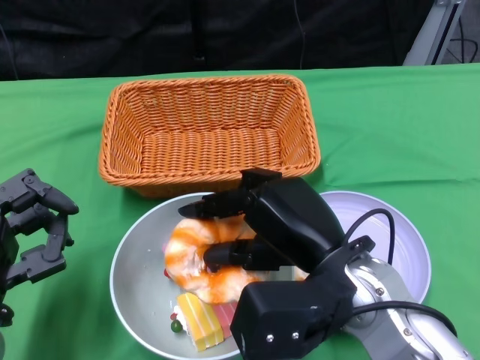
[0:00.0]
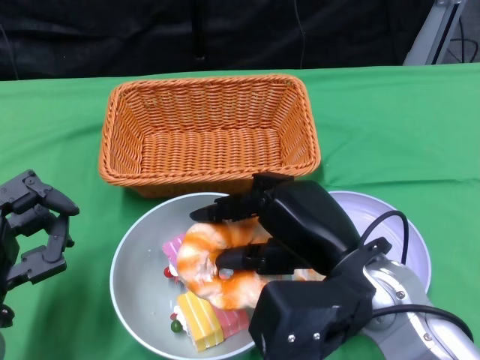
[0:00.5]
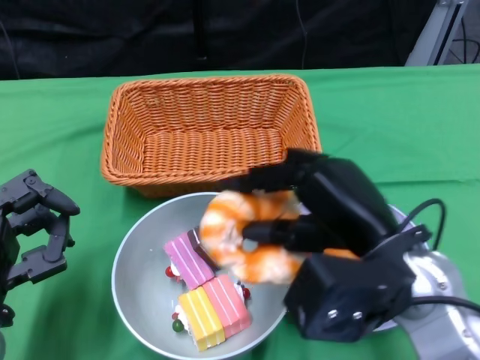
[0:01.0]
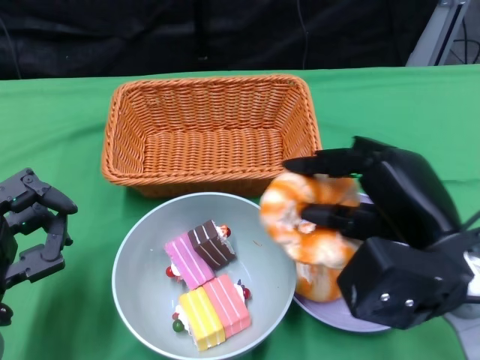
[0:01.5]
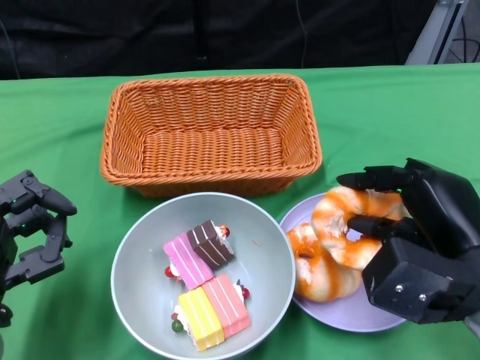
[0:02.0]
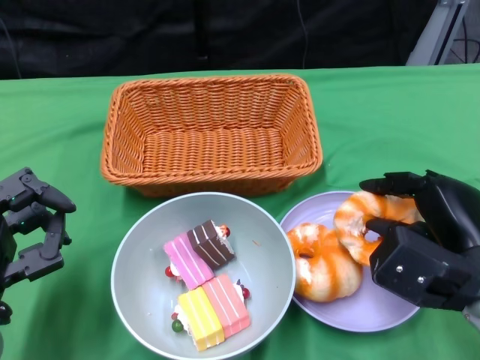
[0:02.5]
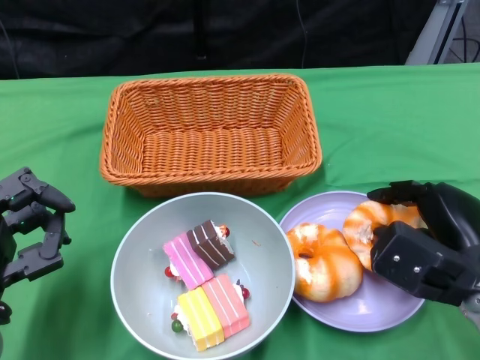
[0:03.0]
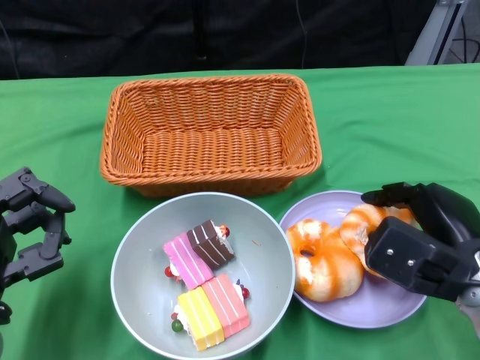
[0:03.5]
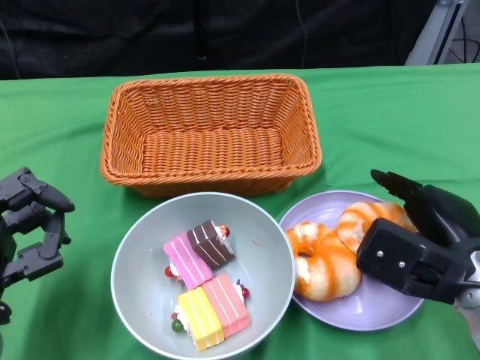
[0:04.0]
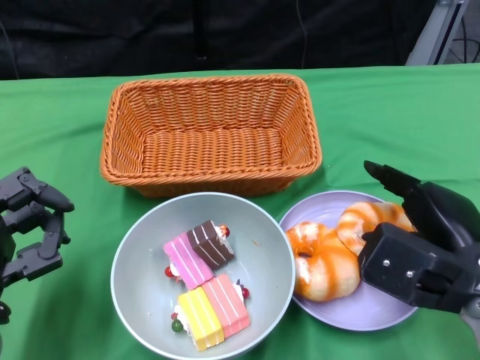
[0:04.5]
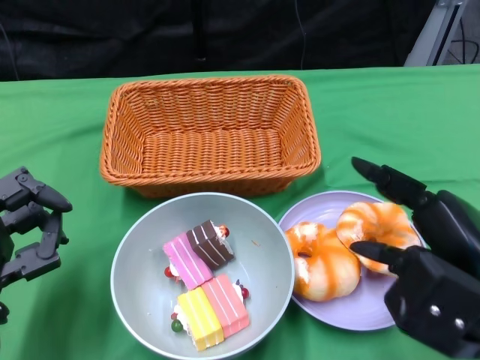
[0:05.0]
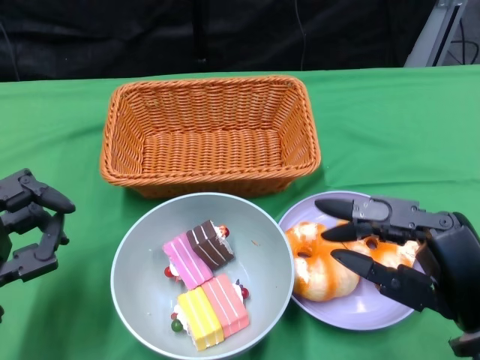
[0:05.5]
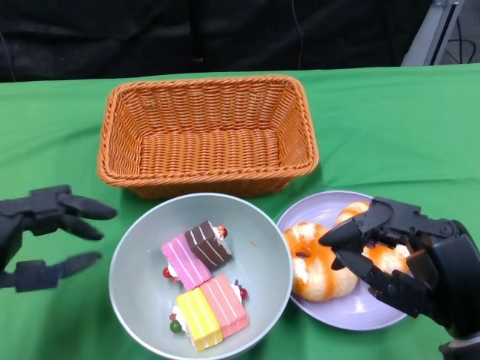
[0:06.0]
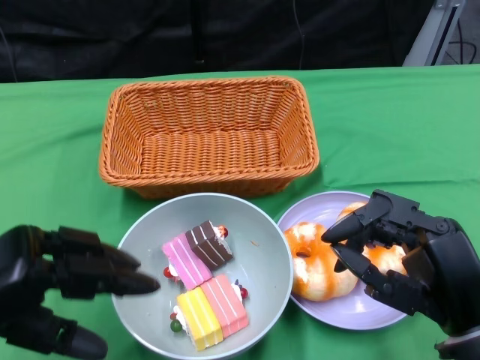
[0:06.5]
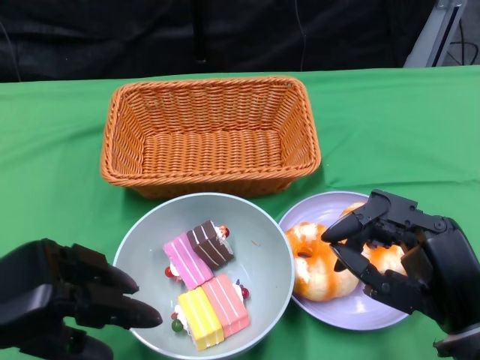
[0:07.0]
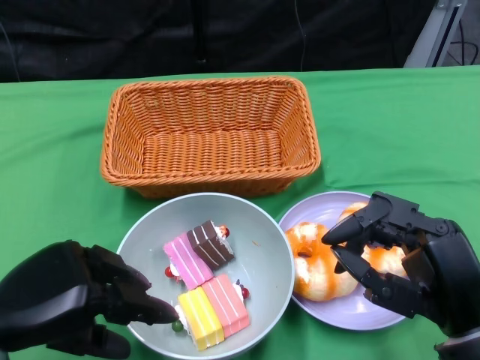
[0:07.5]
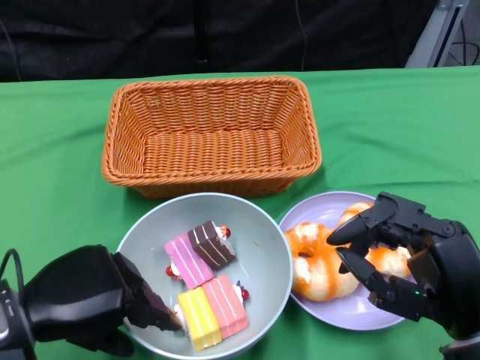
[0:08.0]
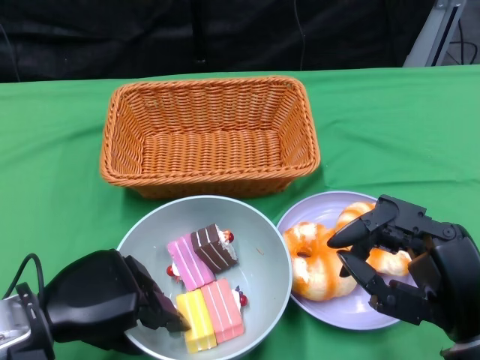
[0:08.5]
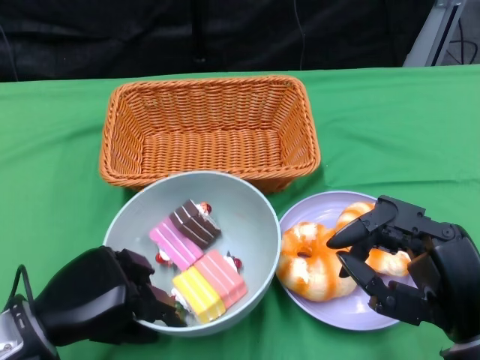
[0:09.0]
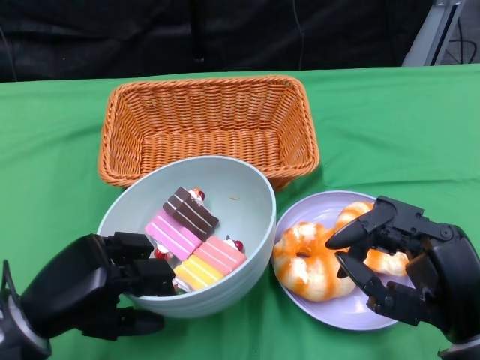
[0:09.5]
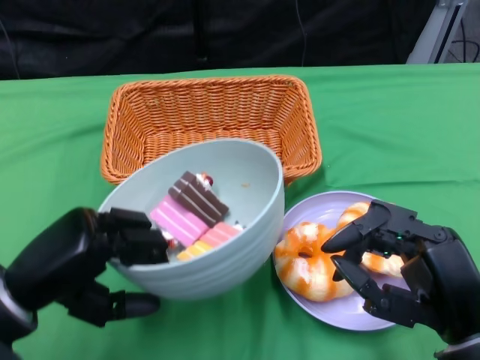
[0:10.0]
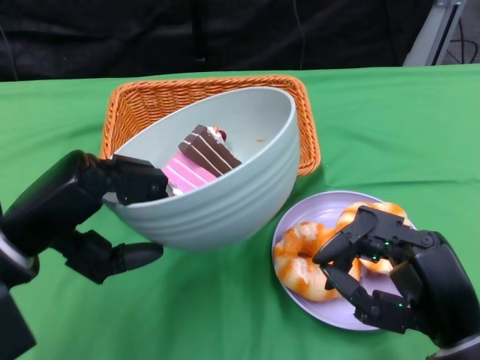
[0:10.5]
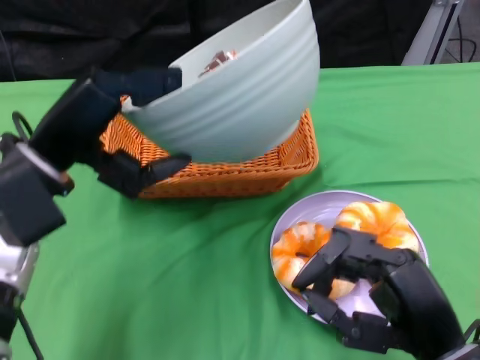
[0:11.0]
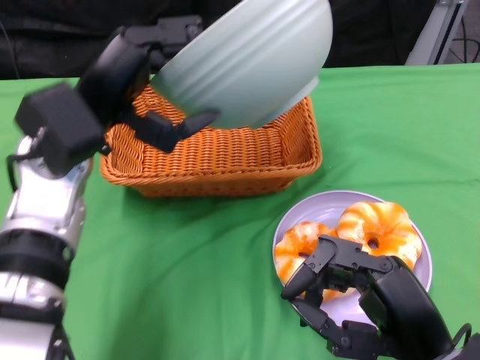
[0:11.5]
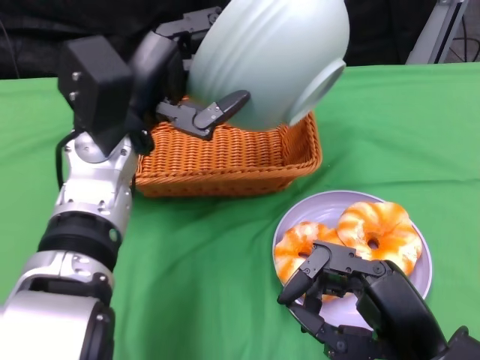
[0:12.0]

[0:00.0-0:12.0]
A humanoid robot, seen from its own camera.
Step, 0:00.0 to 0:05.0: Pick up the bread with the right gripper and place it on the plate.
Step, 0:05.5 to 0:09.5: Grasp the bowl with the left gripper.
0:00.0 to 0:02.0: The right hand goes roughly 10 cm to the right.
0:04.0 to 0:06.0: The right hand travels backward by approximately 10 cm.
0:10.0 to 0:12.0: The left hand is displaced forward, to the right and upward by approximately 20 cm.

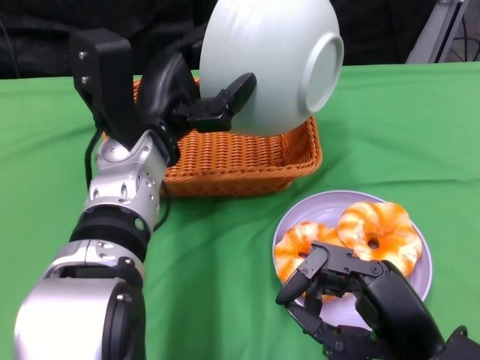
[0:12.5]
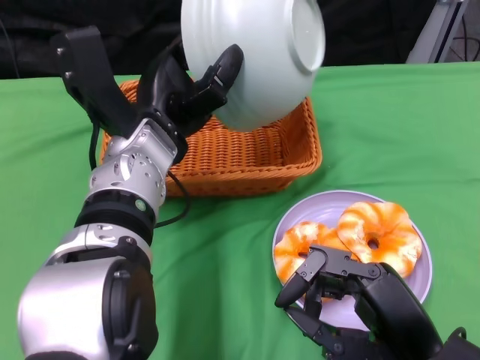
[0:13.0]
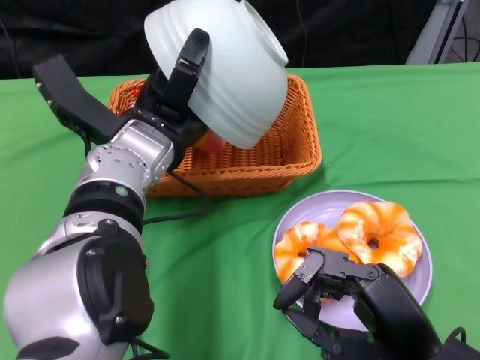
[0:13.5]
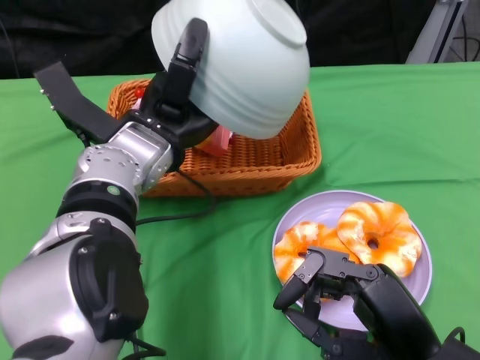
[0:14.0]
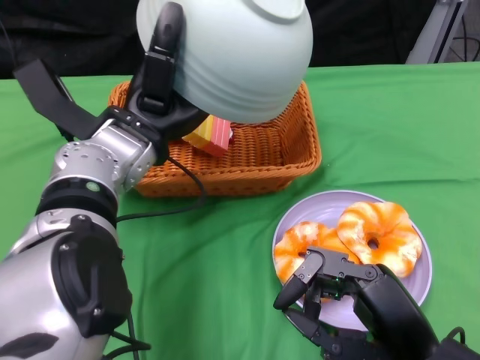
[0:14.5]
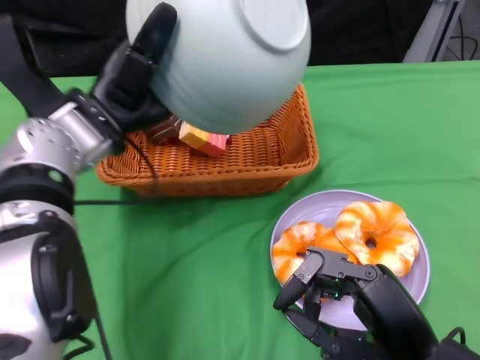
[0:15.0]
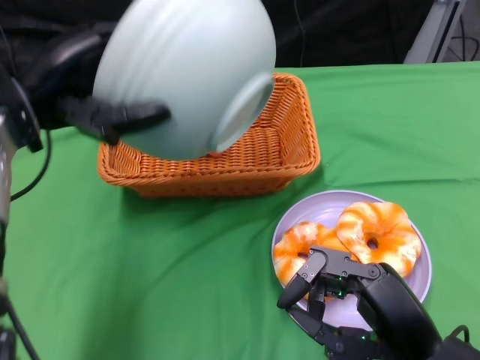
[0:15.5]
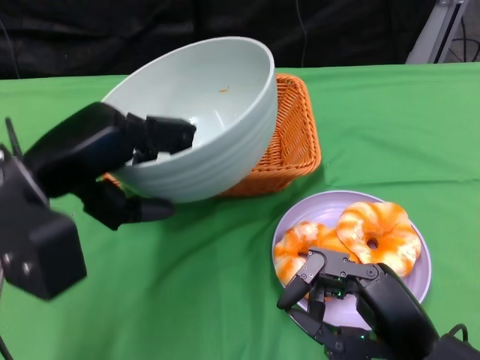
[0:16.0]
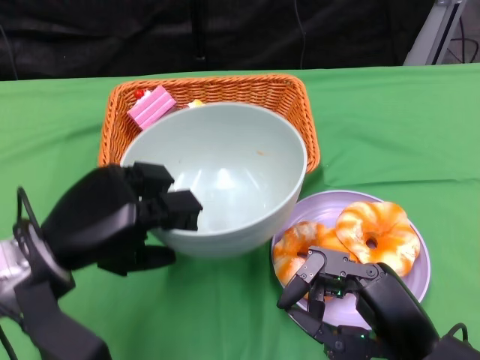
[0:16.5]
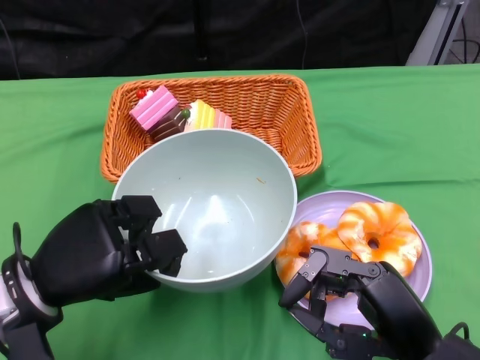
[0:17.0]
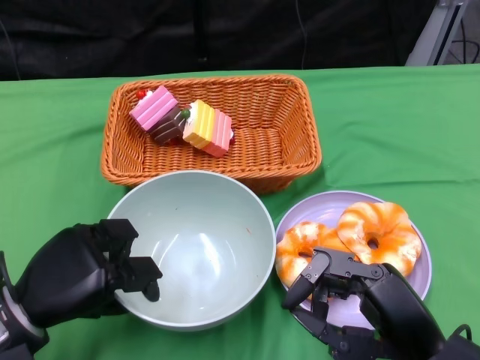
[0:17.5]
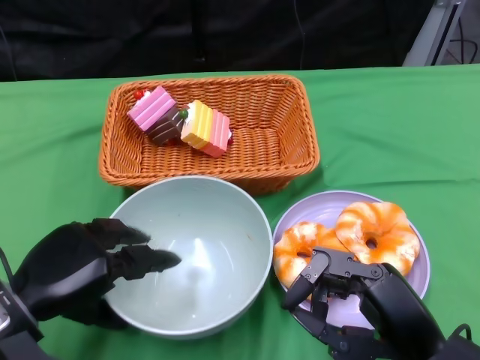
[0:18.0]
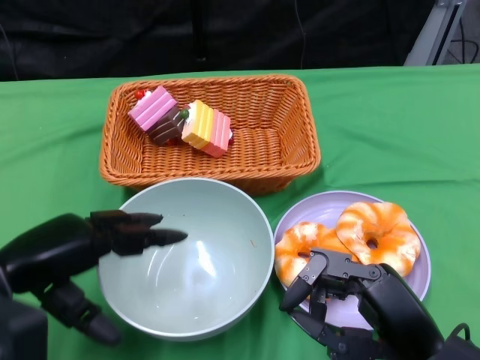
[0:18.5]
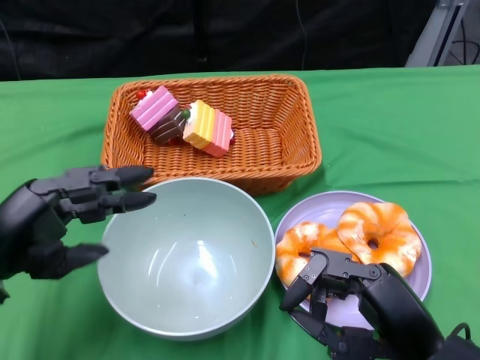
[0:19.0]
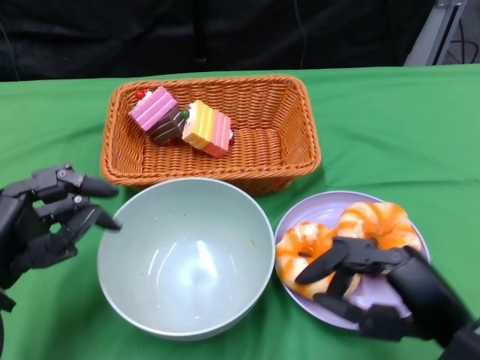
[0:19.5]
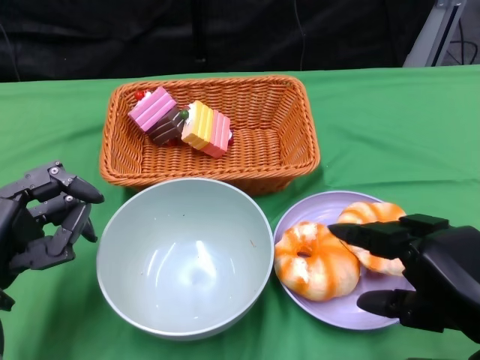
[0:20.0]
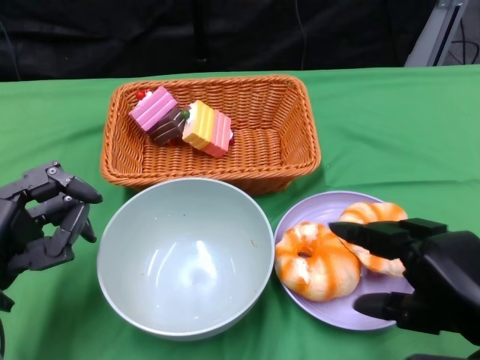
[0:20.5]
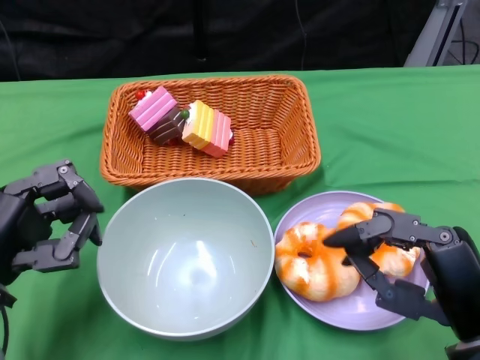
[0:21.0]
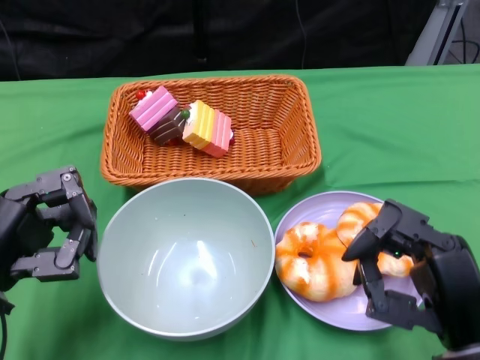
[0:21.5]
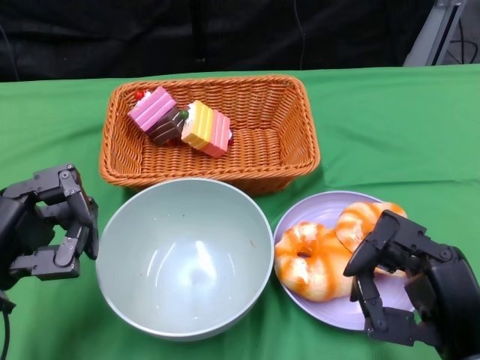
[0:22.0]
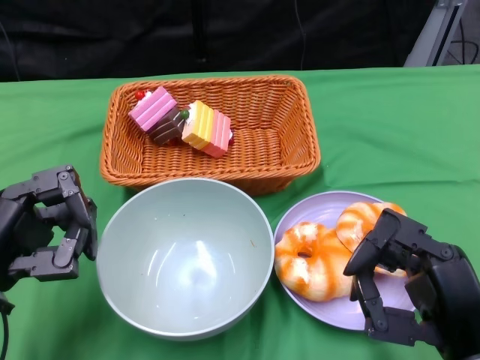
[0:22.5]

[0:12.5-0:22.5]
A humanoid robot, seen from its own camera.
Step, 0:12.5 to 0:14.5: Pour the cake into the basket with the left gripper.
Step, 0:15.0 to 0:18.5: Place the bowl on the table with the left gripper.
0:14.5 to 0:16.5: The left hand goes approximately 15 cm backward and to the left.
0:18.5 to 0:20.5: The right hand shifts approximately 5 cm upward.

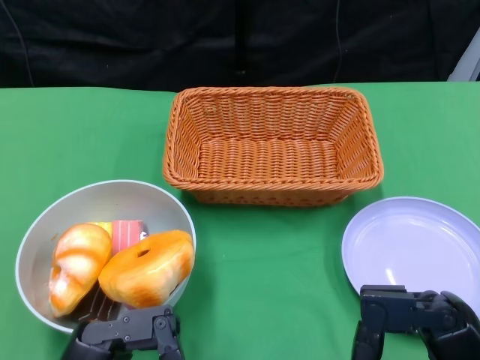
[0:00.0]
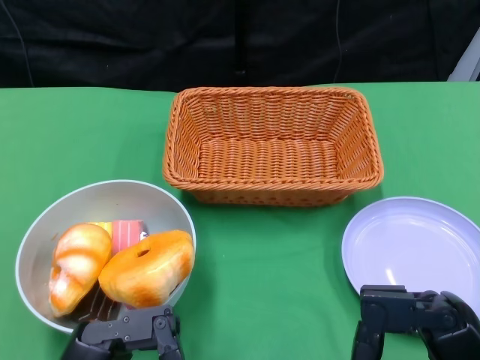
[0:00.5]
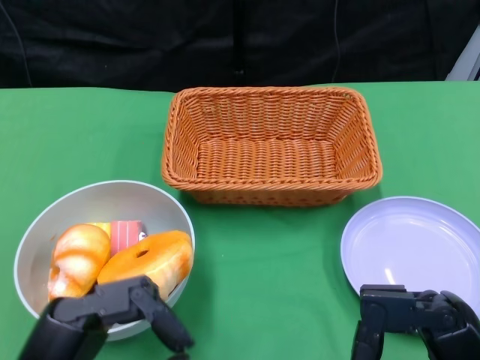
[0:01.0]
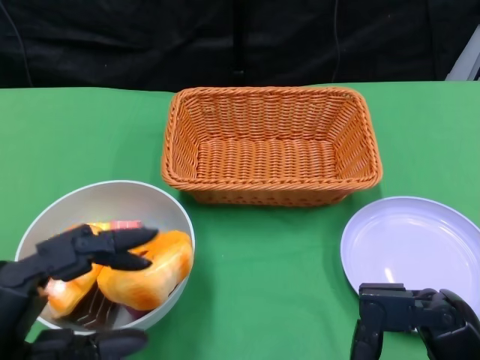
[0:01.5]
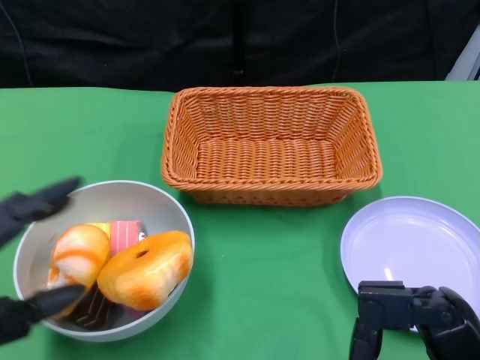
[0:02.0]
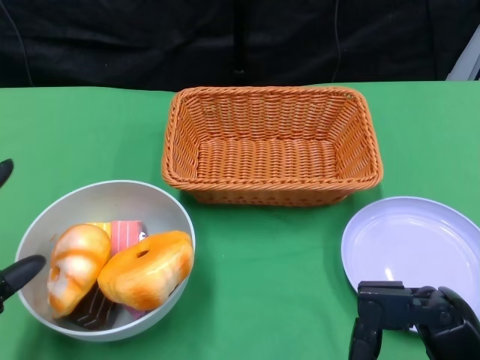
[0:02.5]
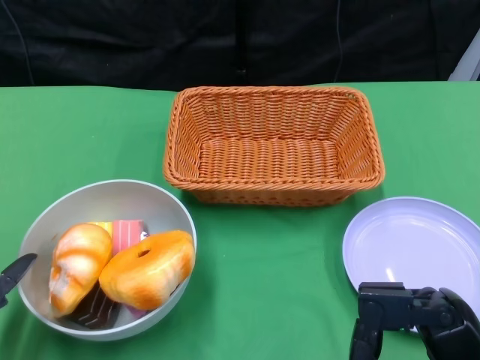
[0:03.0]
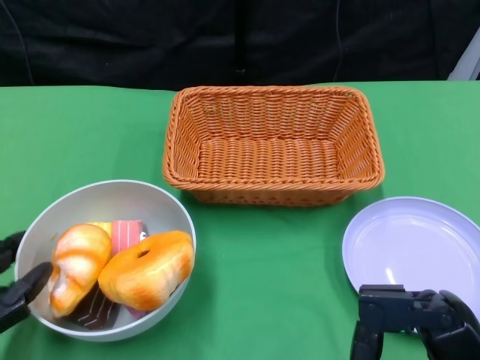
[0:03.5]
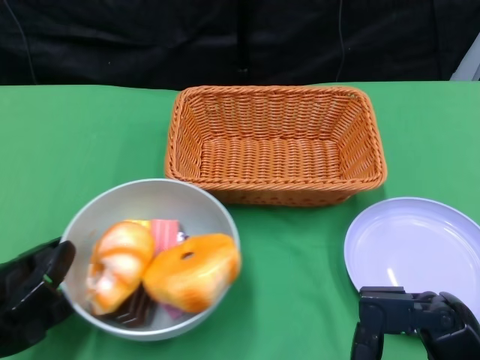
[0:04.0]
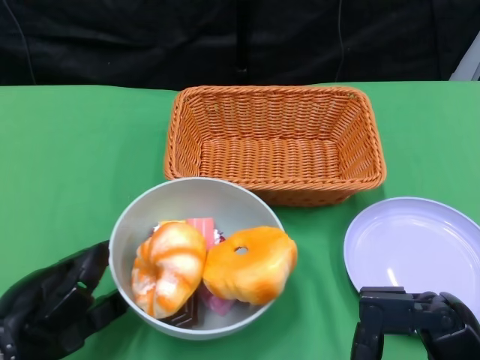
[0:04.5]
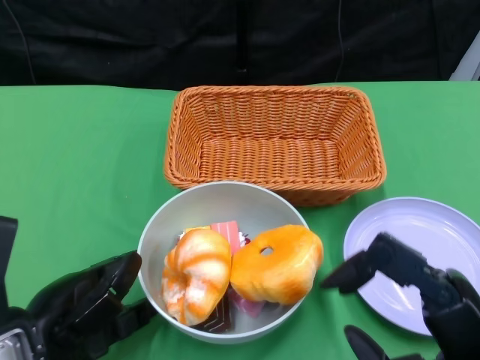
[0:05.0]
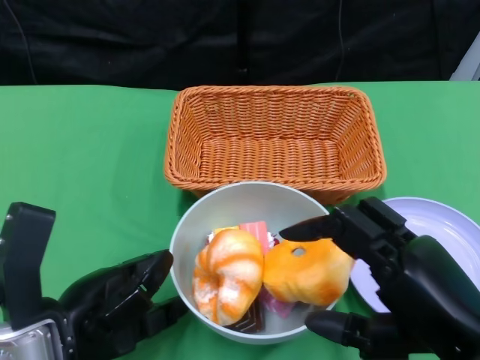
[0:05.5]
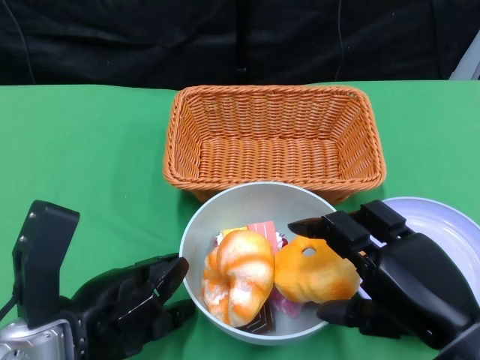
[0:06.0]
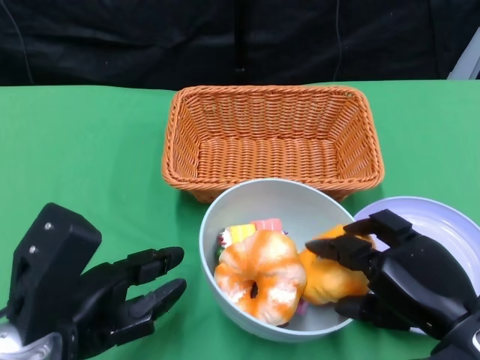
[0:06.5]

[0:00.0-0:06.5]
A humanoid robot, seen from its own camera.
Step, 0:00.0 to 0:06.0: Push the bowl to the center of the table using the left gripper.
0:02.0 to 0:04.5: The left hand goes some 5 cm forward.
0:04.5 to 0:06.5: The right hand travels forward by approximately 5 cm, while the left hand shifts by approximately 5 cm.
